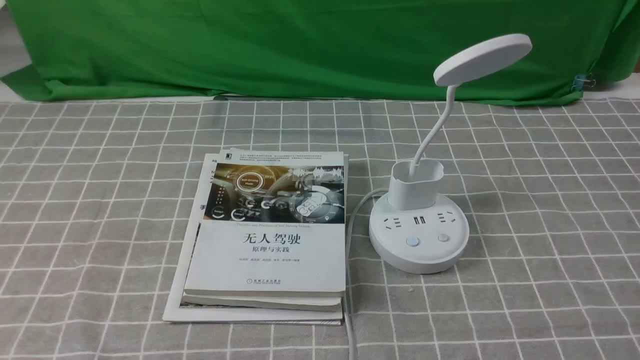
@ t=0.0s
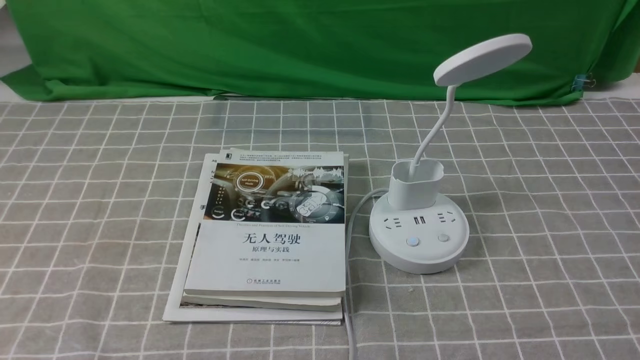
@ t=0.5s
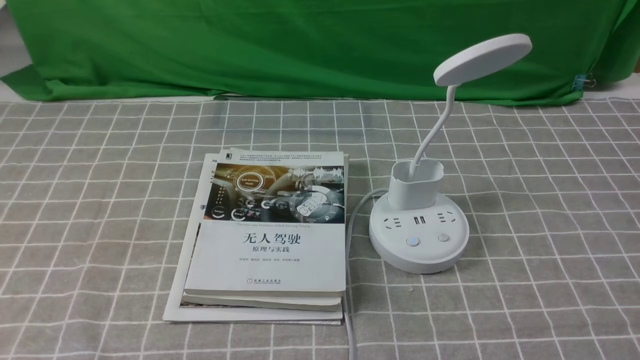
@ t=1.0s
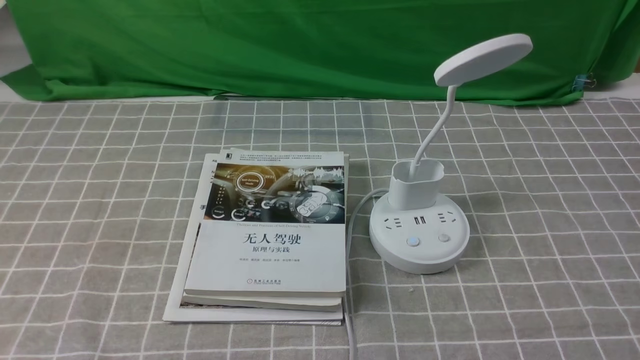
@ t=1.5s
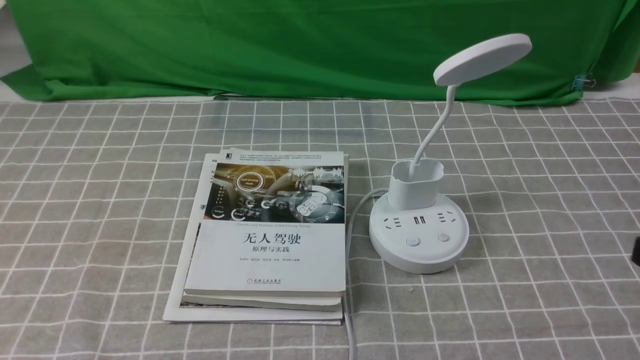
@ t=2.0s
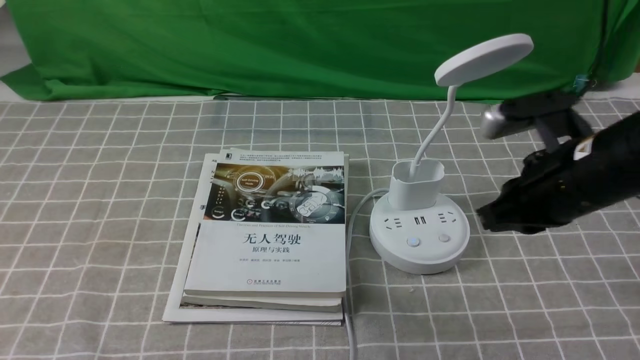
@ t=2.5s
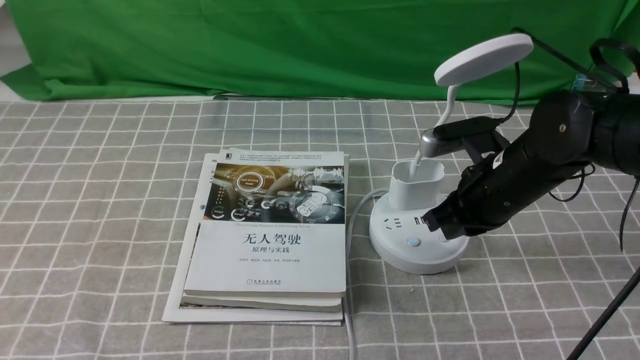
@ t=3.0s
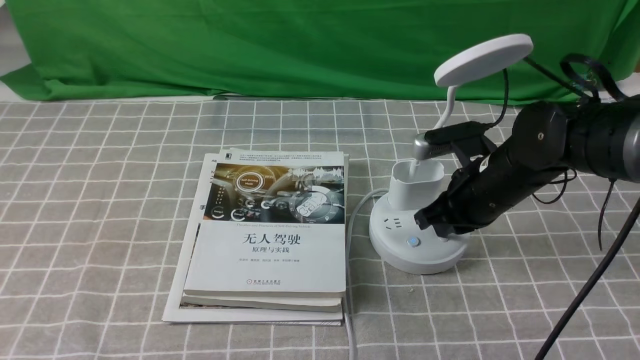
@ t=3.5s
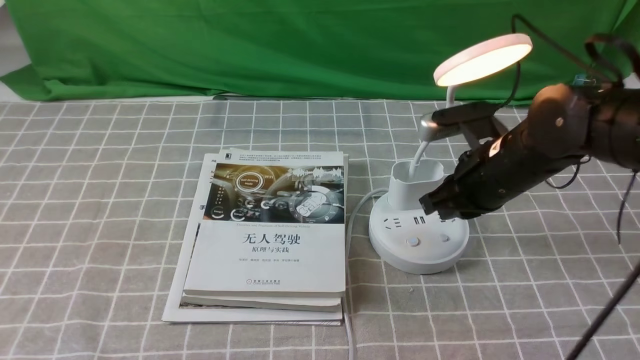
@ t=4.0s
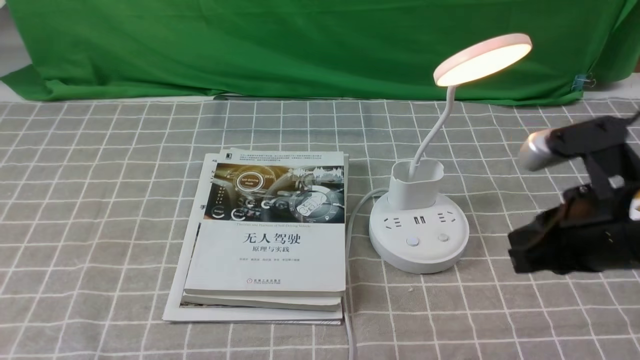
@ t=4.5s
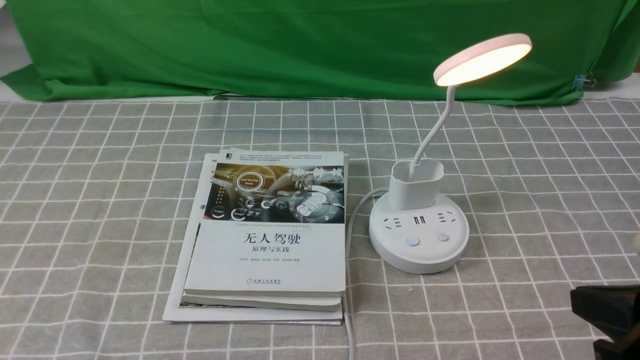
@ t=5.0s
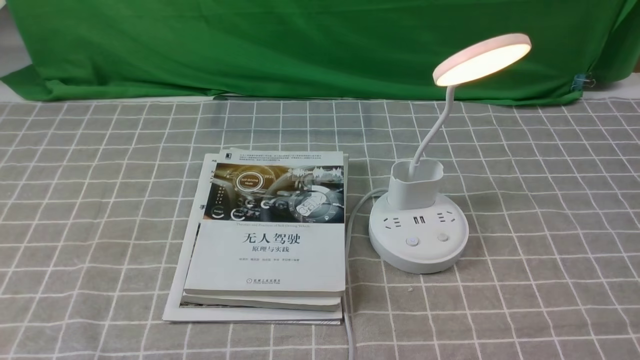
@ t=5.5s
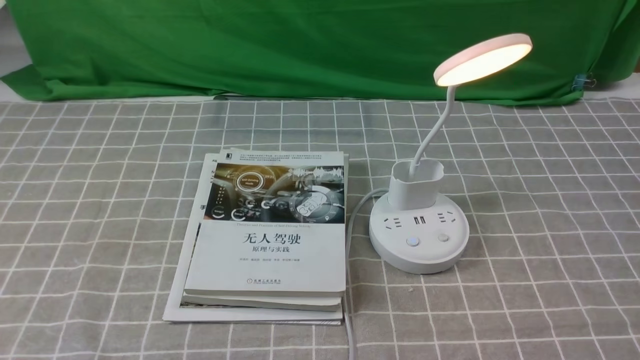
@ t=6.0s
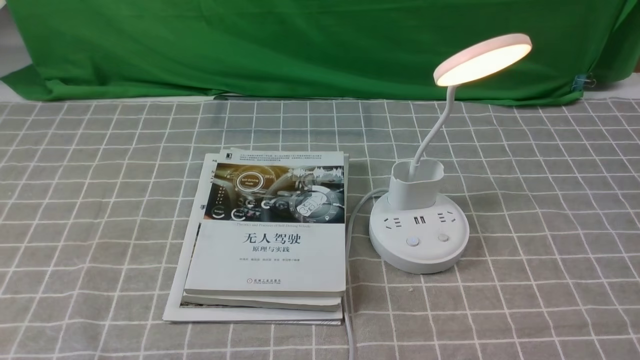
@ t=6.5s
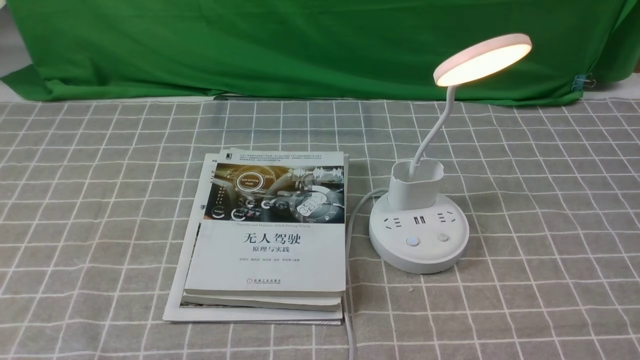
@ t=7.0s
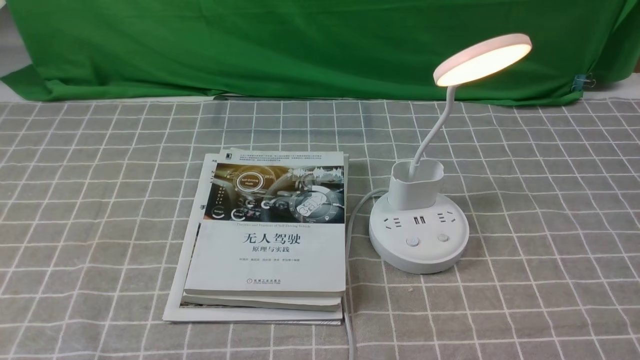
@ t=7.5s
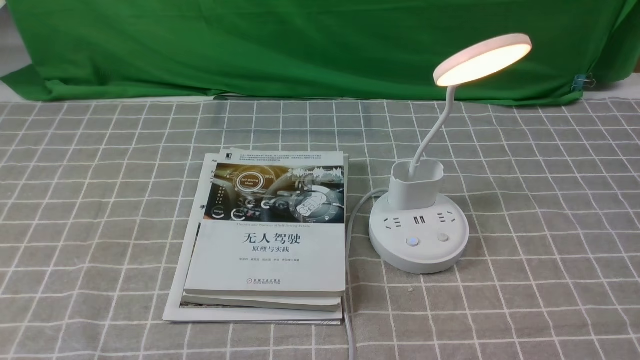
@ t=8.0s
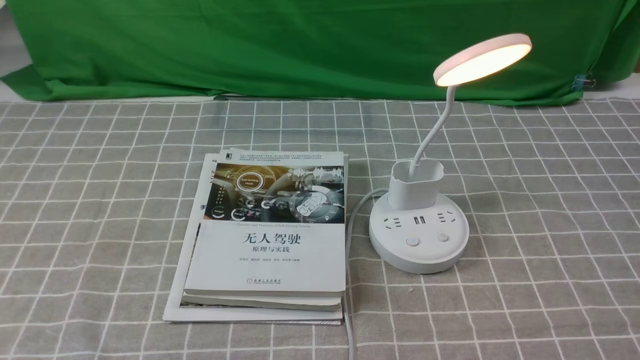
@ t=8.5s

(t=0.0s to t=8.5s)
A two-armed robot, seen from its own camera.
Step, t=0.0s - t=5.0s: use the right arm to press the button switch on the lamp holder.
t=2.0s - t=4.0s: The right gripper is displaced forward, to the left and downward by approximately 25 cm.
t=4.0s - t=6.5s: The right gripper goes roughly 30 cm backward and to the right.

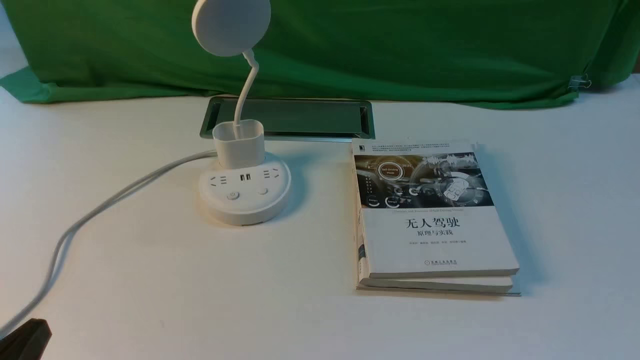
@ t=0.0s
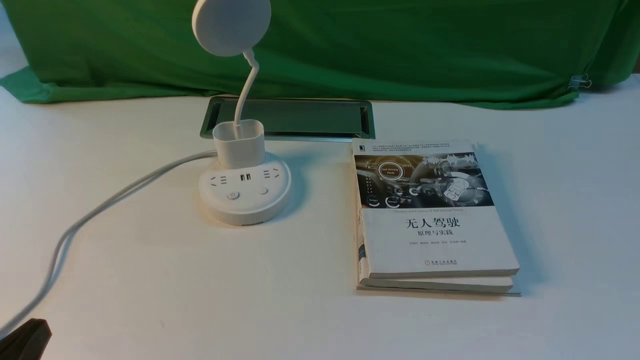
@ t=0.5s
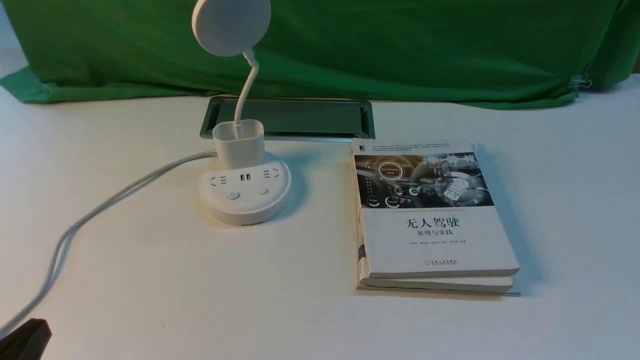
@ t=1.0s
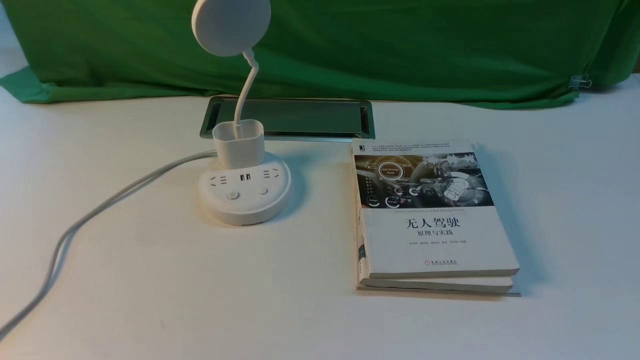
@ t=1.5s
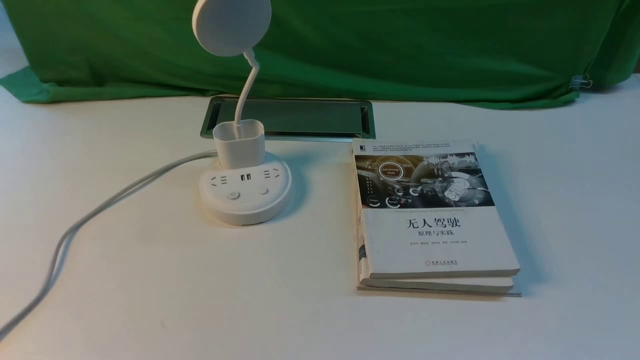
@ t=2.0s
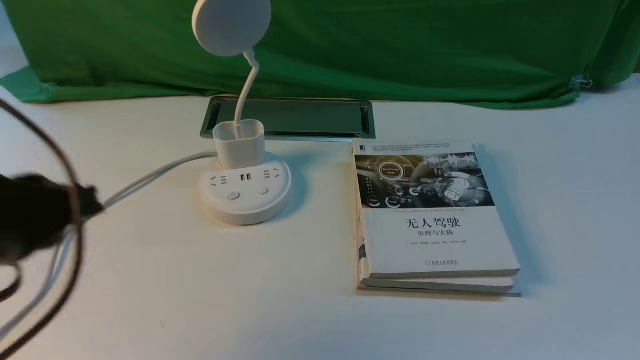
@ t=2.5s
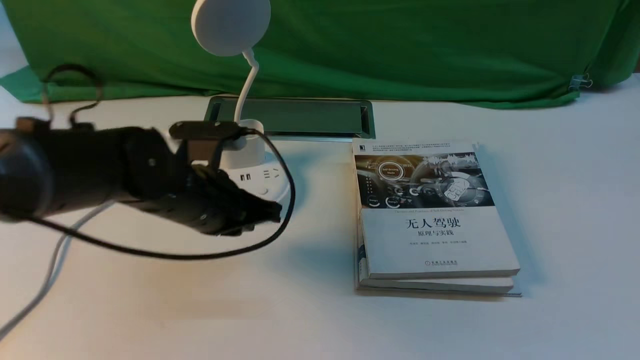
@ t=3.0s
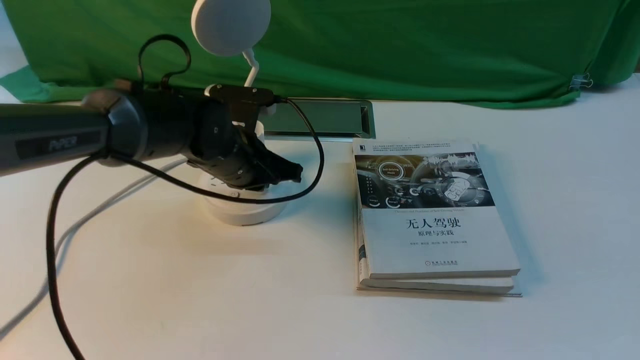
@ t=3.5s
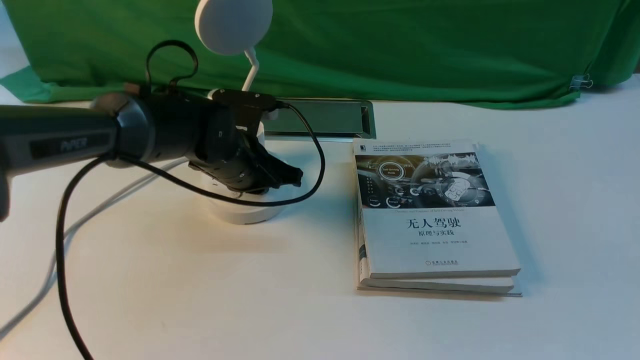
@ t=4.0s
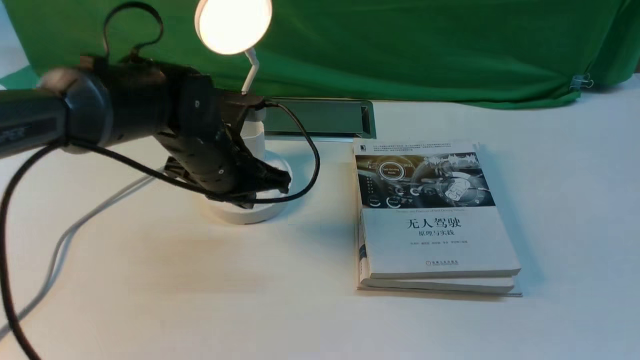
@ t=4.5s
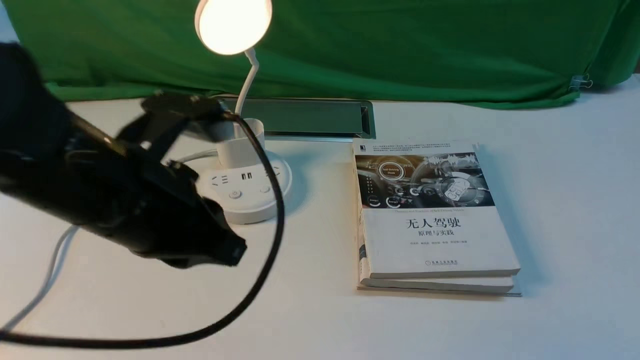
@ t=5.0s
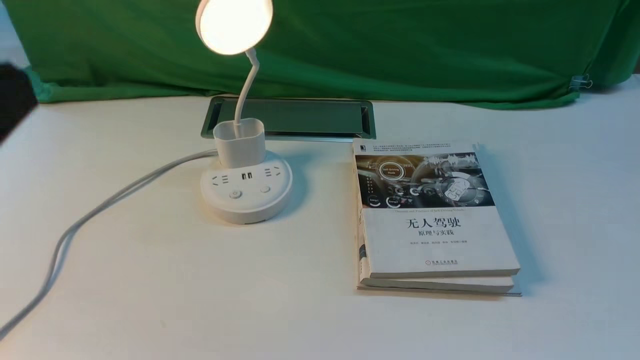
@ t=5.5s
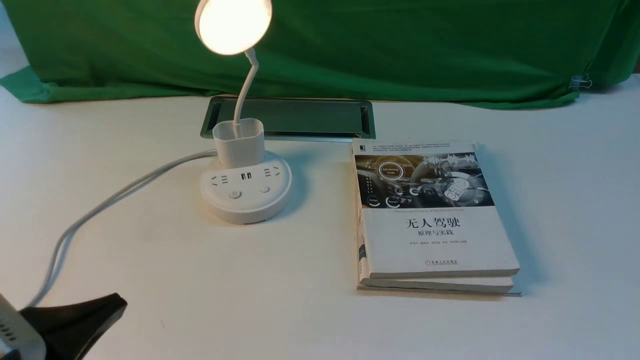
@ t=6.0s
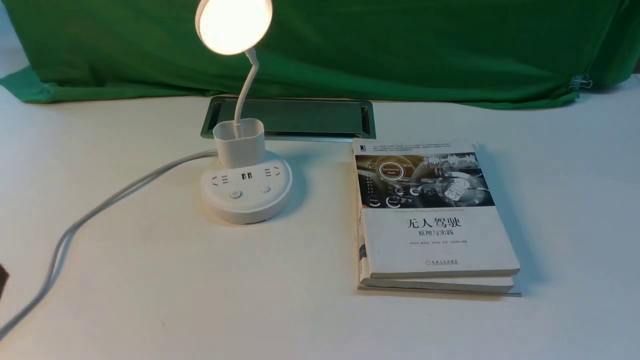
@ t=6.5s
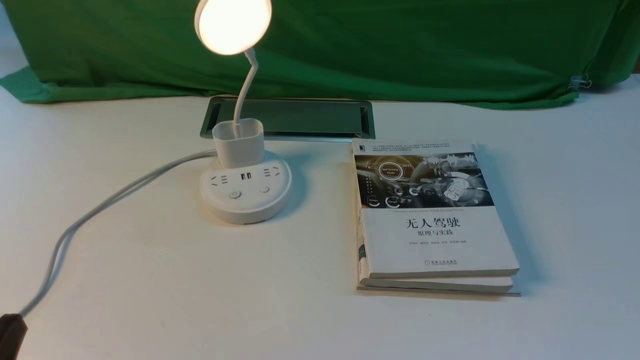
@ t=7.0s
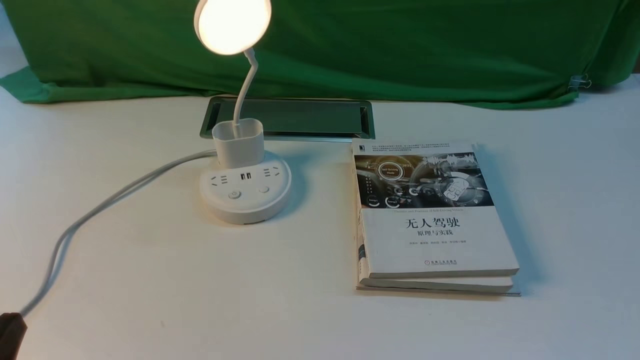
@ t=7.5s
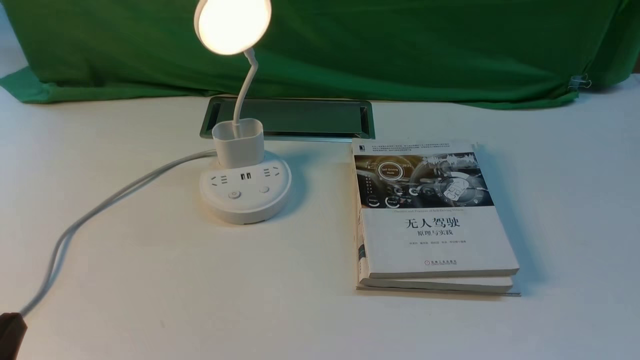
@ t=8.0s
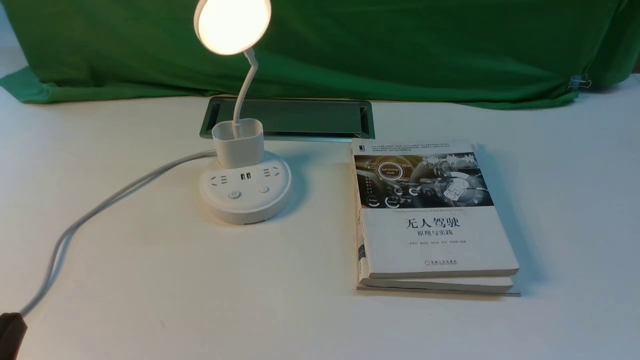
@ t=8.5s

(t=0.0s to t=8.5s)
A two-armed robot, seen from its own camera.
Step, t=0.0s - t=4.5s: use the left arm to press the button switch on the lamp holder.
t=0.0s - t=2.0s: The left gripper travels upward by some 15 cm.
t=2.0s - t=4.0s: The left gripper shifts approximately 40 cm forward, downward and to the right.
t=4.0s - t=6.5s: The left gripper heads backward and to the left, covering approximately 35 cm.
t=6.5s - t=8.5s: The left gripper opens.
